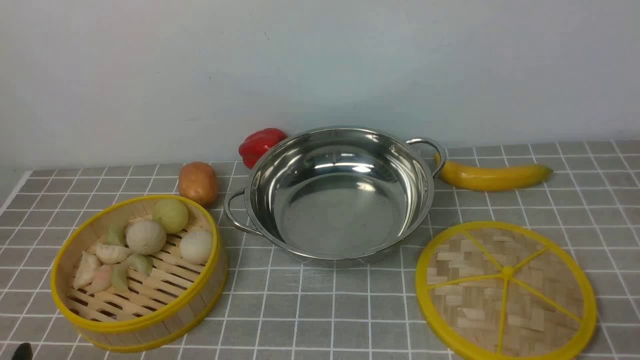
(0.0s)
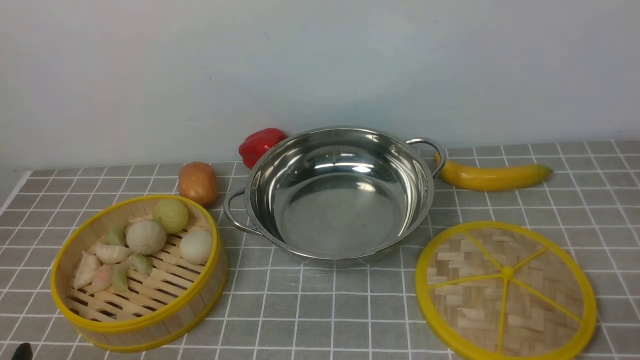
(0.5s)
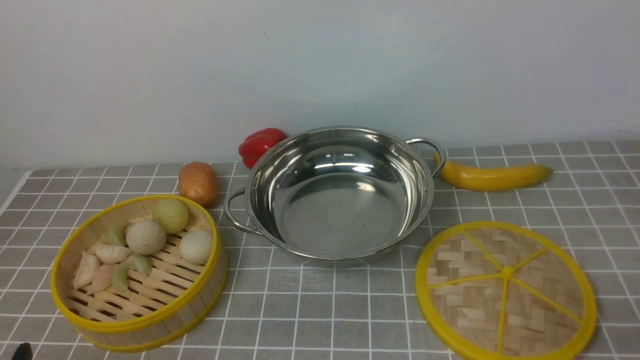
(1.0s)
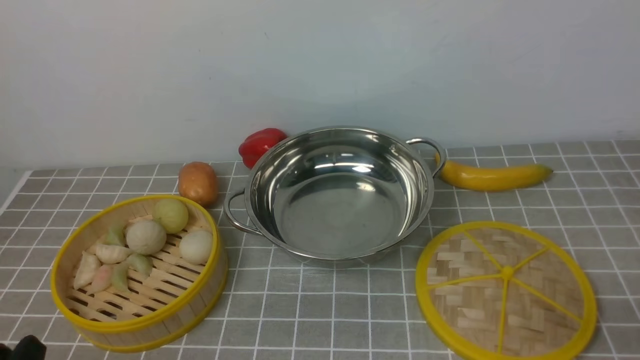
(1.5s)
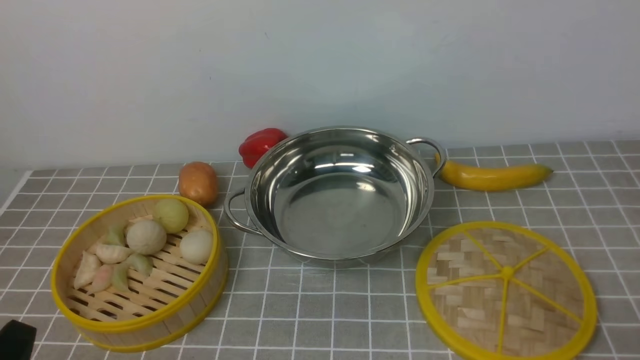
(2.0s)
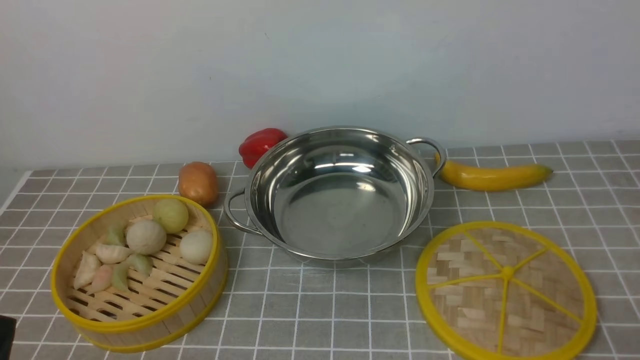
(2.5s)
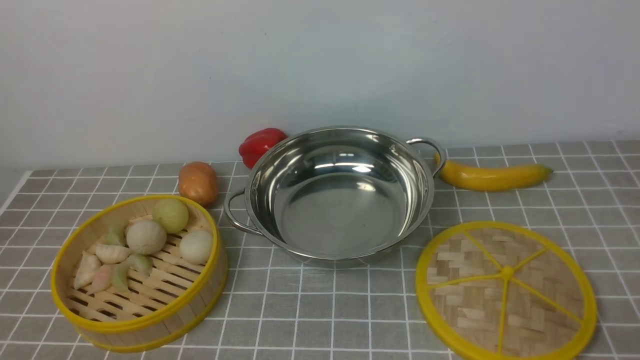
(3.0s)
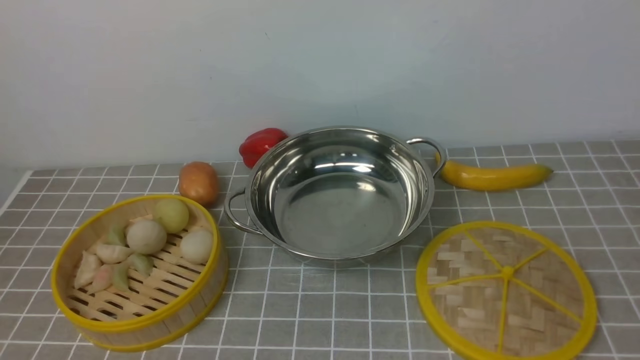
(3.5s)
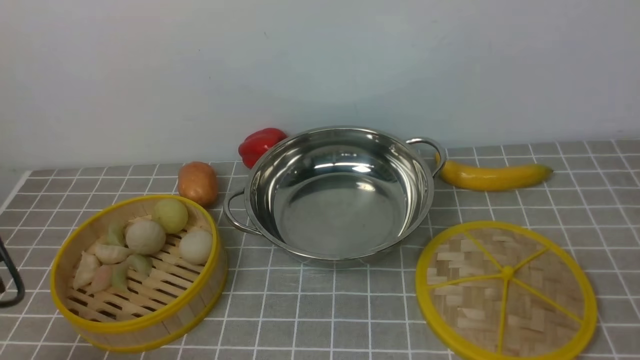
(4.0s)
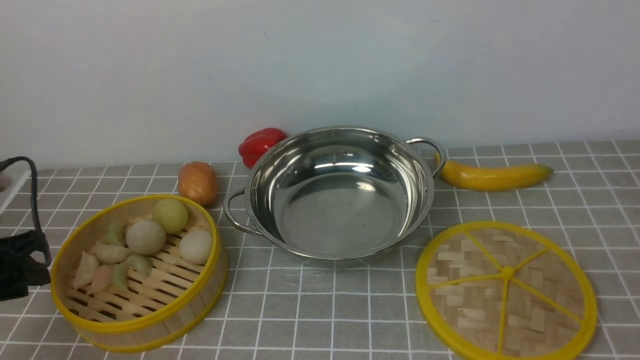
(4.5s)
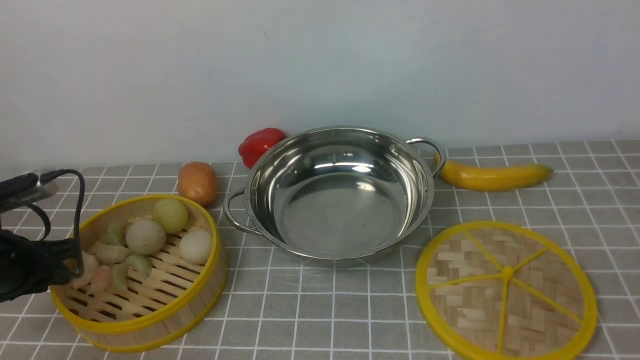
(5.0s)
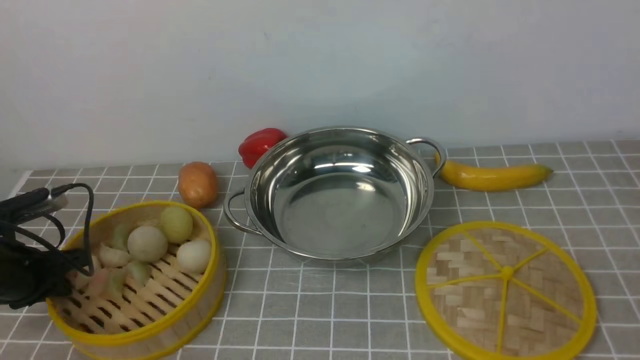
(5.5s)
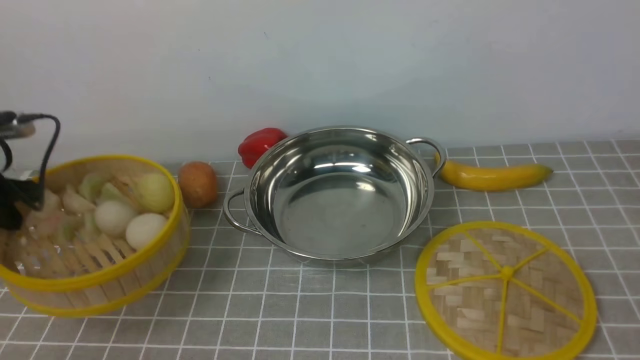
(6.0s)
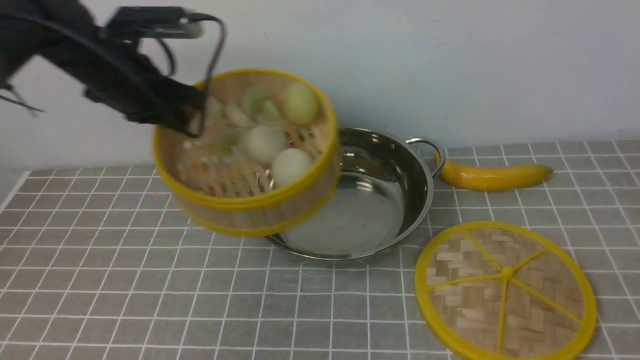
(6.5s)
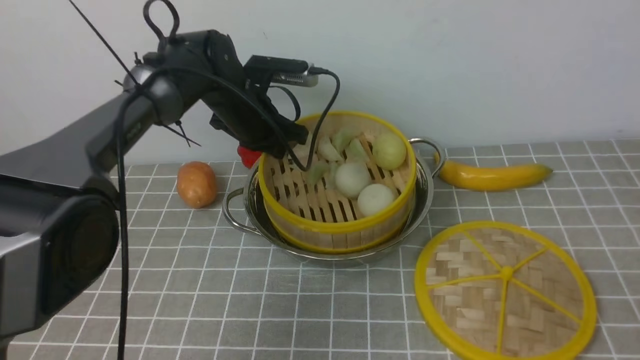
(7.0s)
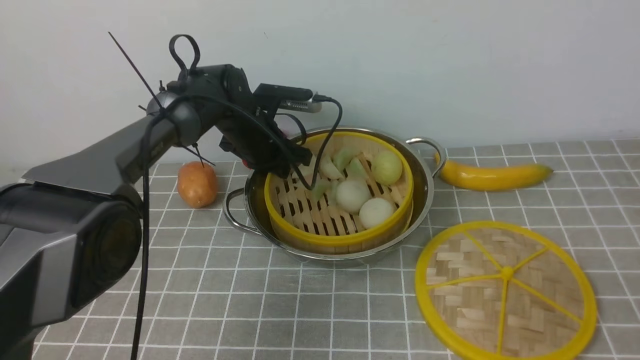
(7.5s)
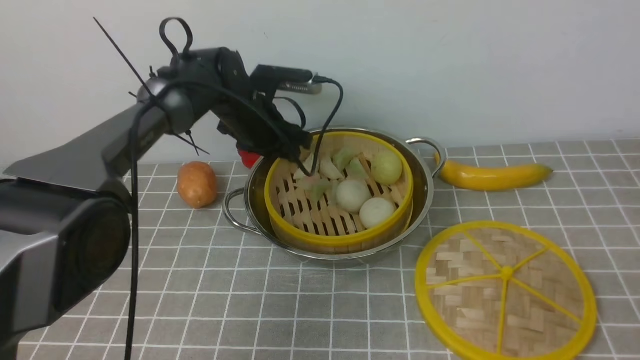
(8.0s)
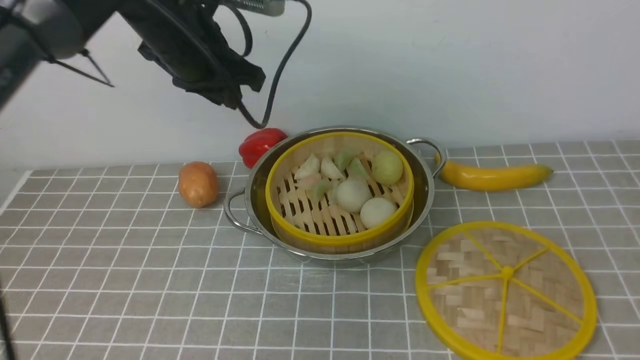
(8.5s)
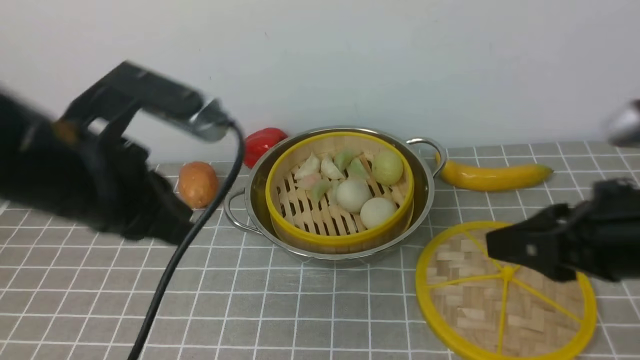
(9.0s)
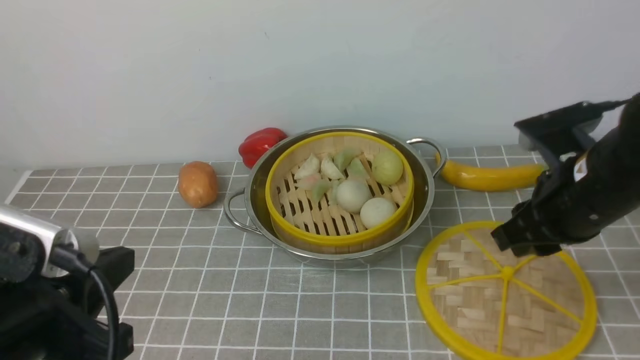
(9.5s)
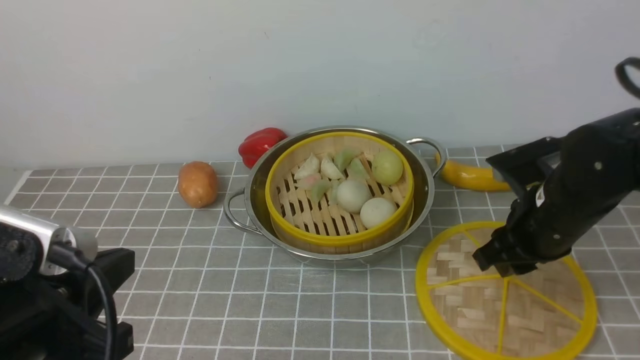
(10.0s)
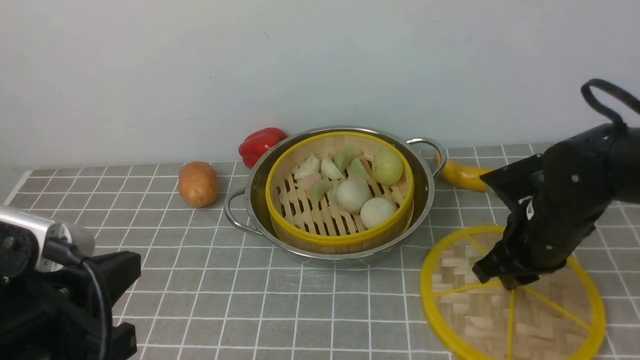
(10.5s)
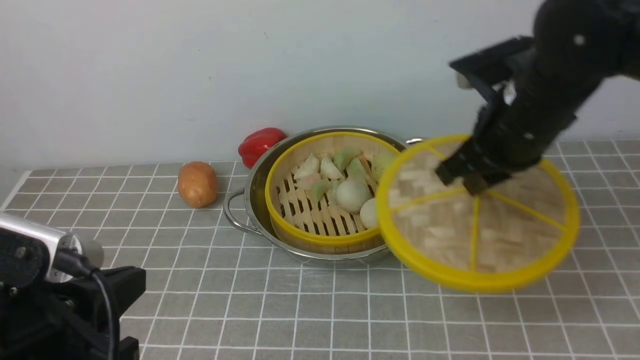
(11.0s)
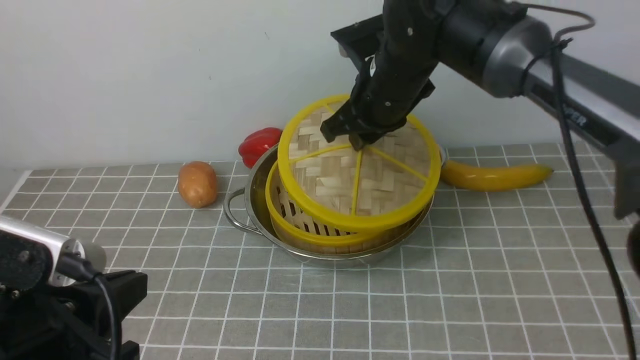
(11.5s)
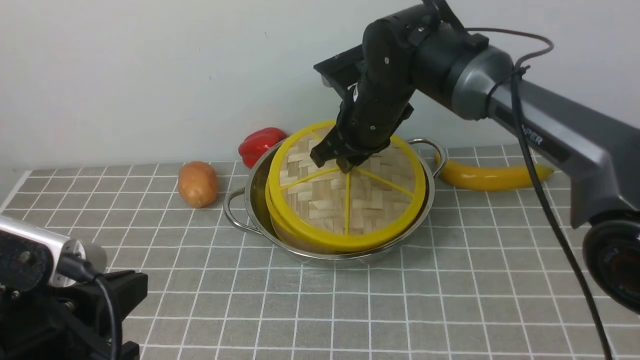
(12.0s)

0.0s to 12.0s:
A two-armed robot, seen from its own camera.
Task of the whole recording: place the steamer in the pot on the grey tablecloth, and put the lid on the steamer.
Step, 0.0s to 5.5s: use the left arm to lift the steamer closest to it.
Step, 6.0s to 8.0s: use the left arm to put the steamer into the iron steamer pot in the middle.
Step, 8.5s to 10.5s: use the right arm to lift the lid of the steamer.
2.0s to 4.0s: The left gripper shifts approximately 20 cm forward, to the left and upward.
4.0s to 6.0s: The left gripper shifts about 15 cm forward, and closes.
6.0s to 8.0s: The left gripper goes some 30 cm to the right and forward, and opens up.
8.0s to 10.0s: The left gripper is displaced backward by approximately 40 cm, and closes up, while the right gripper travels forward by approximately 30 cm.
10.0s to 12.0s: The right gripper goes approximately 20 cm to the left and forward.

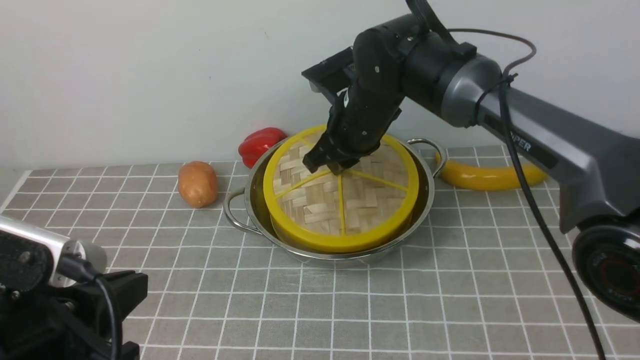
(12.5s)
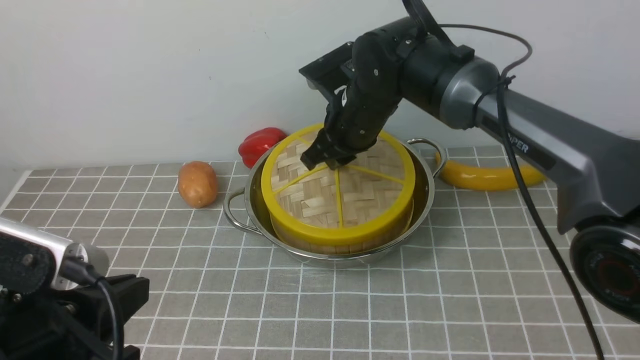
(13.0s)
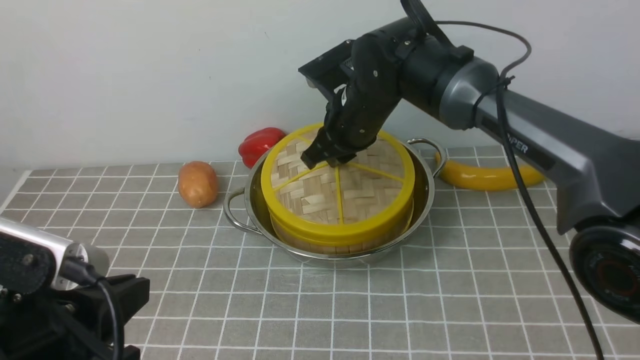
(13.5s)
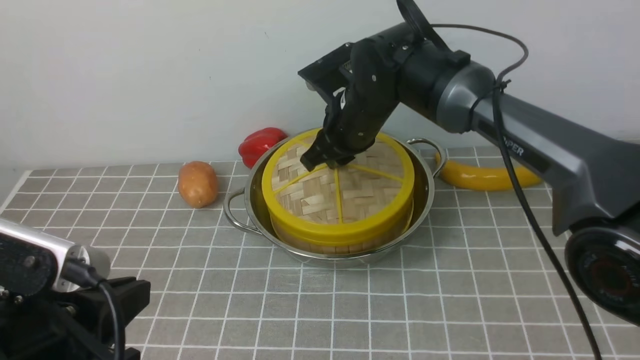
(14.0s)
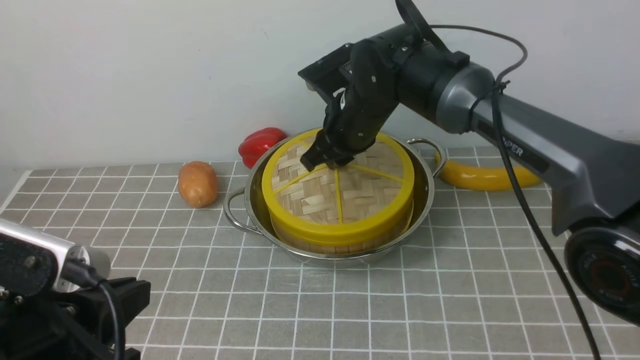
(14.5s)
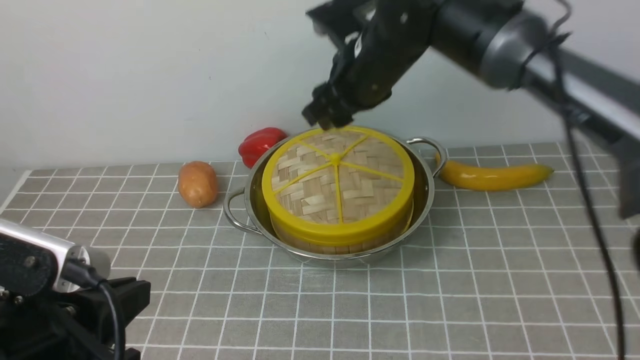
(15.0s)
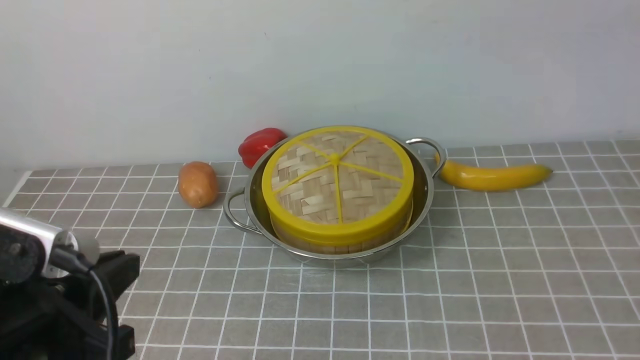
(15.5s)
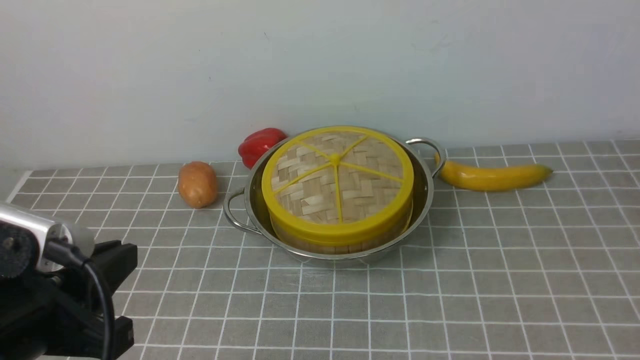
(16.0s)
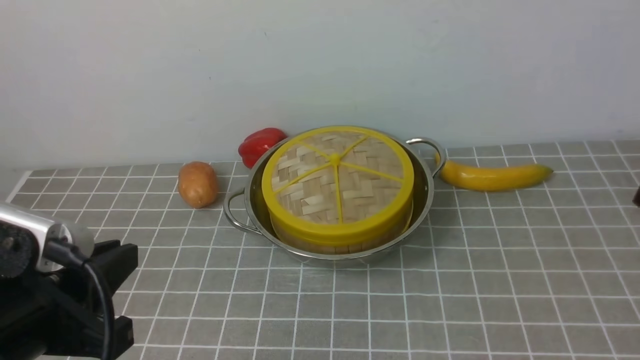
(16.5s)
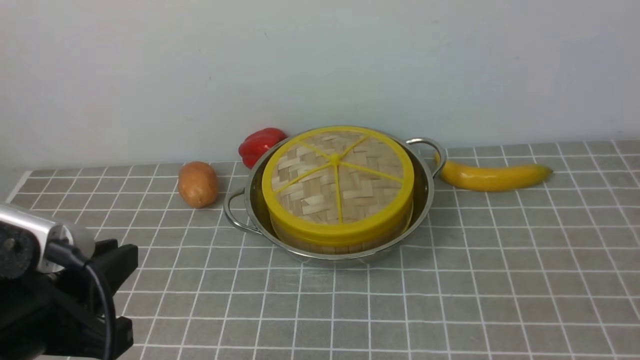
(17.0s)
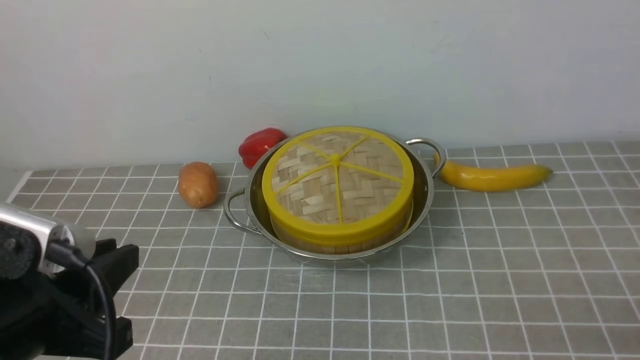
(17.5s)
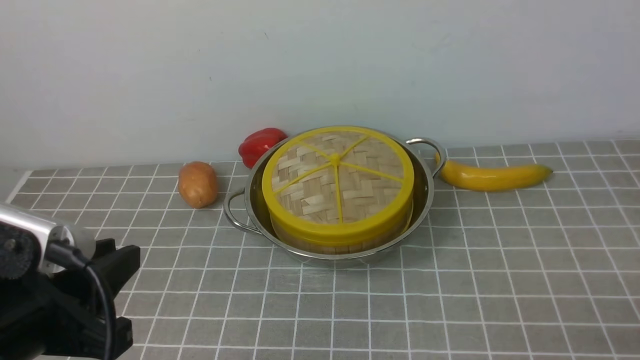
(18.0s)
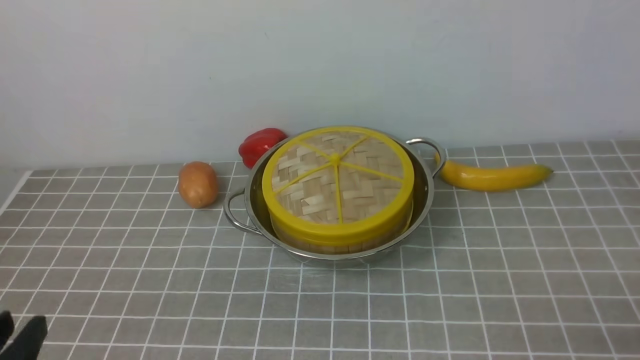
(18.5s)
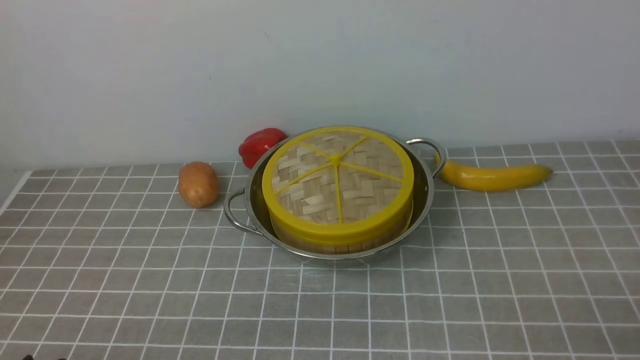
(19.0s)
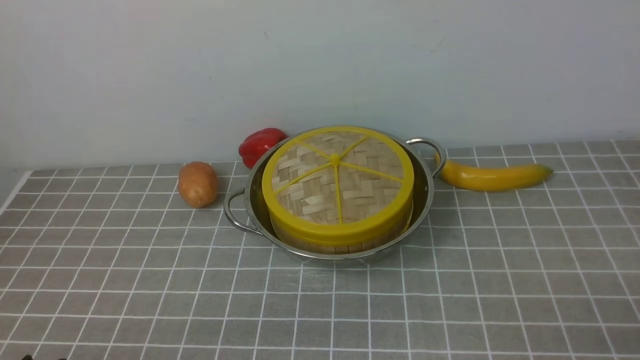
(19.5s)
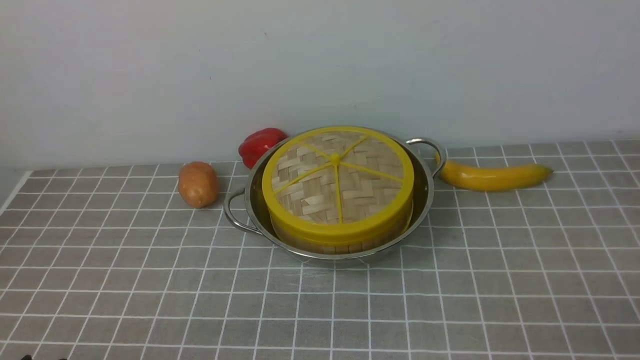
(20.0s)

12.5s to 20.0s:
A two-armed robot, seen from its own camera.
Task of the whole recording: place the steamer in the pot on the grey tablecloth, and put the lid on the steamer.
12.5s to 14.5s: Neither gripper changes place.
14.5s to 16.5s: The right gripper travels backward and to the right by some 40 cm, and closes its fingers.
18.0s to 20.0s: The left gripper is displaced downward and backward by roughly 15 cm.
